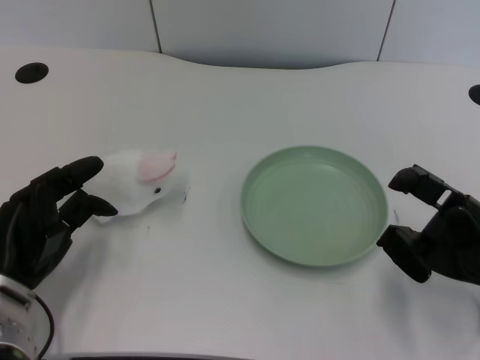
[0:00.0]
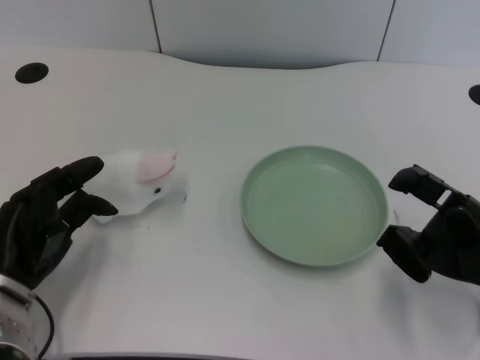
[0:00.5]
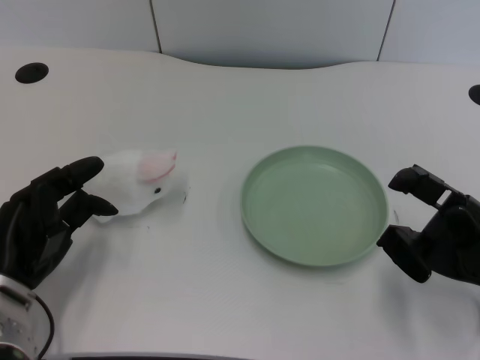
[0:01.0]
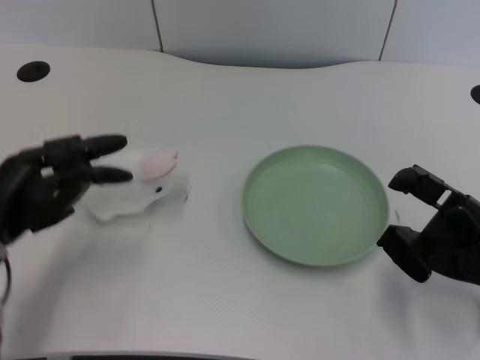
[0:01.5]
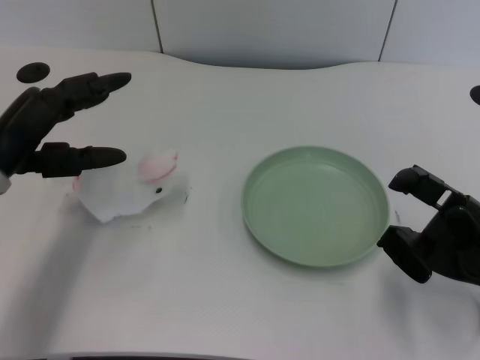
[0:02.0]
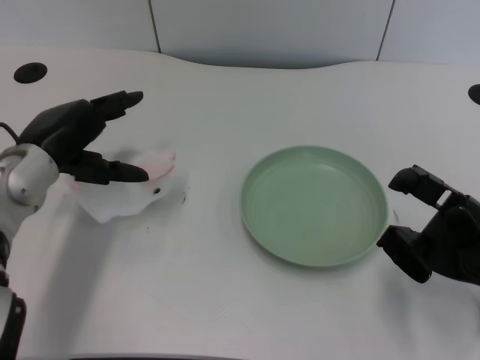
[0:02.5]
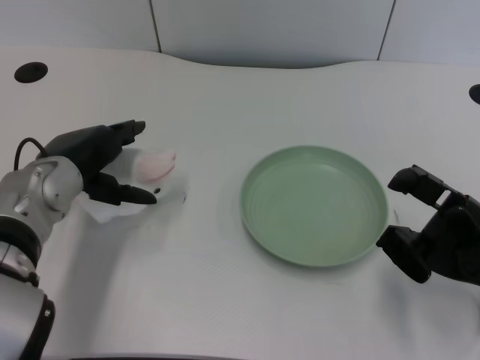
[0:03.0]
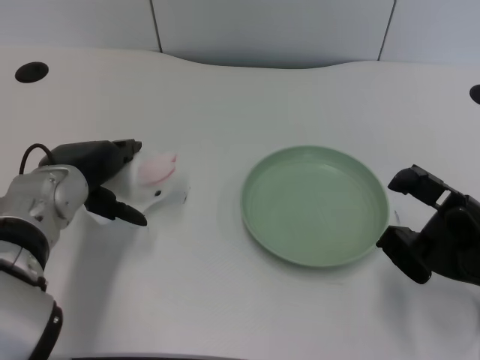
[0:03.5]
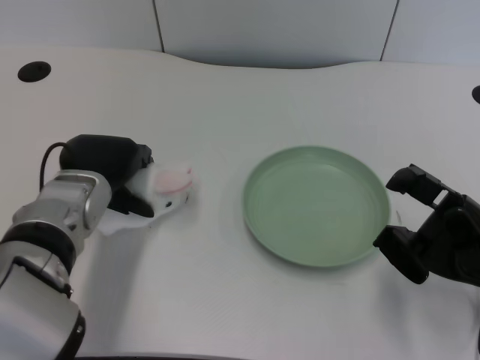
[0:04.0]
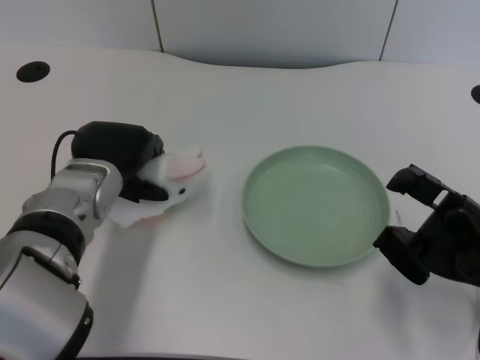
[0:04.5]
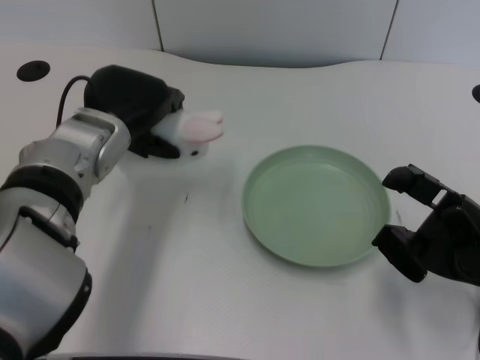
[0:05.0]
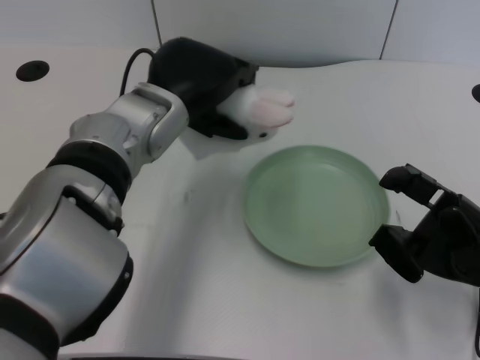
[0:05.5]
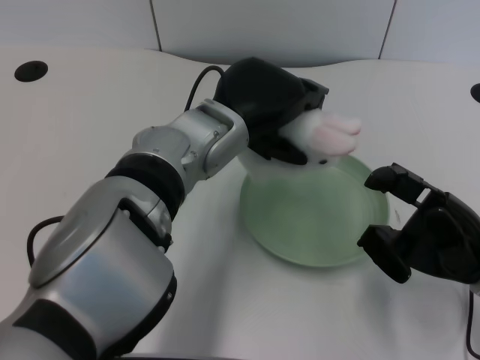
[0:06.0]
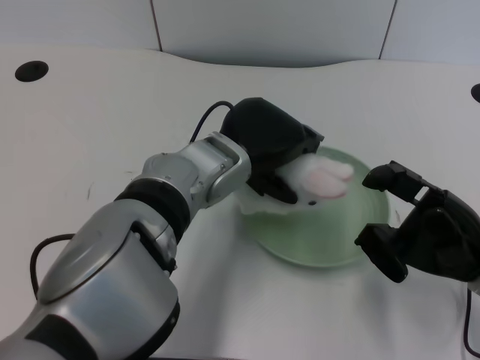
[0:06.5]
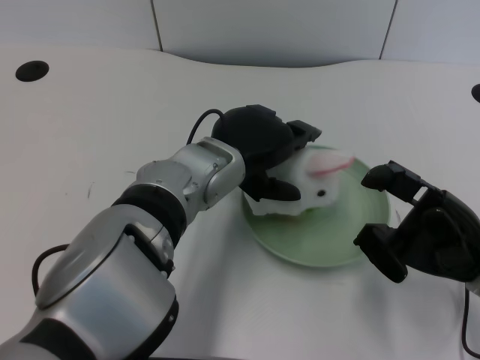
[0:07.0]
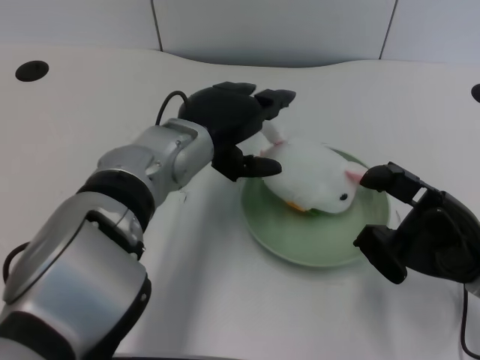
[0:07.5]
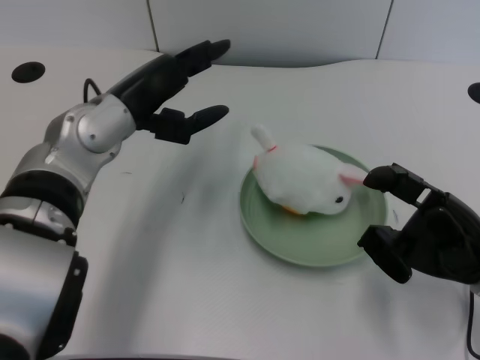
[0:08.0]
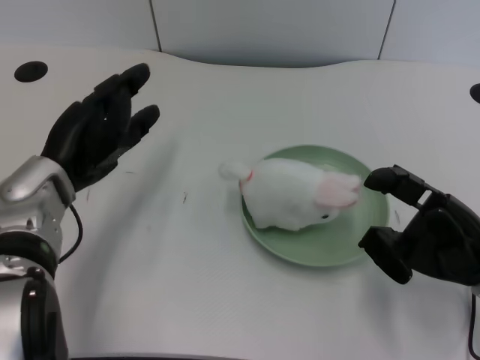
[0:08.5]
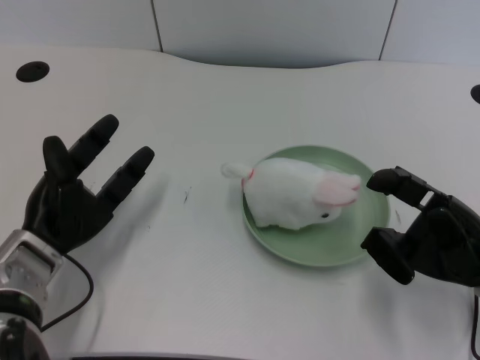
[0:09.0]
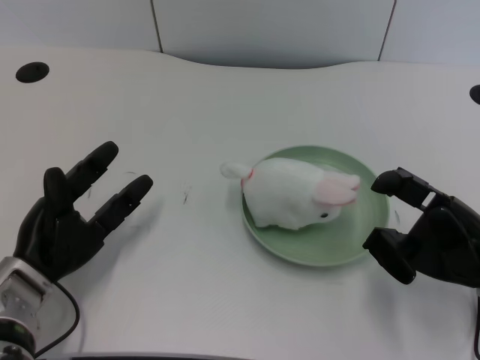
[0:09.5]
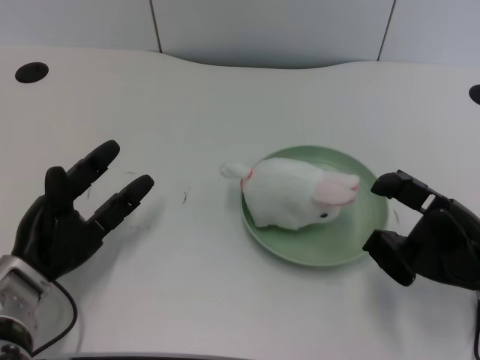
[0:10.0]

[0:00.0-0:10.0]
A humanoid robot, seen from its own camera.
Task of the whole recording: pick up the rabbit doll from the table and place it on the plate.
Step, 0:01.5 to 0:04.5: Grasp the rabbit doll with the left gripper.
Step, 0:05.0 to 0:07.0: Place the rabbit doll into the plate with the left gripper.
0:02.0 to 0:04.0: The left hand heads to the right, covering some 10 cm.
0:04.0 to 0:06.0: The left hand is displaced to the right and upward by roughly 15 cm.
0:06.0 to 0:08.0: The left hand travels to the left by some 10 cm.
0:08.0 to 0:10.0: The left hand travels downward, to the left and backward by roughly 20 cm.

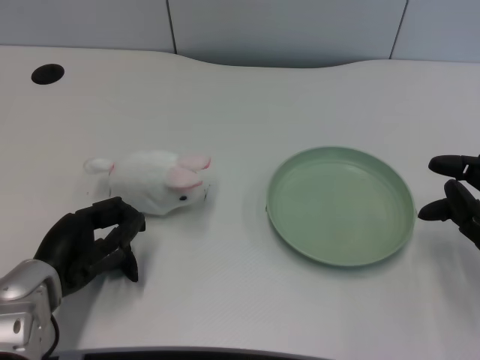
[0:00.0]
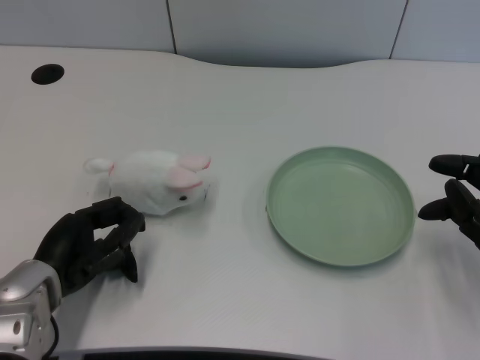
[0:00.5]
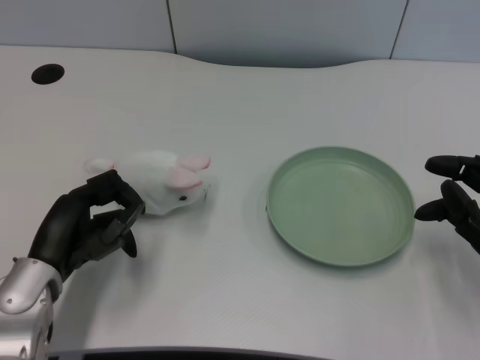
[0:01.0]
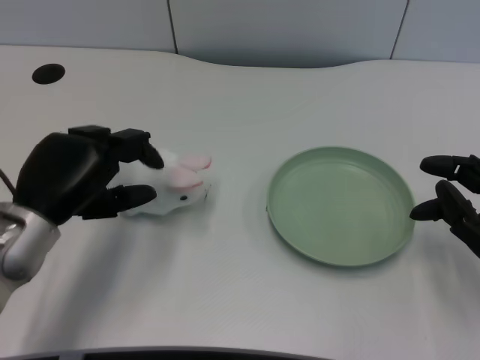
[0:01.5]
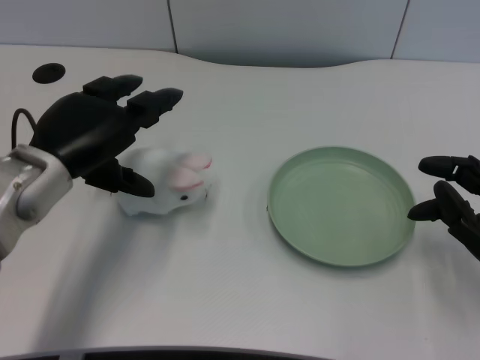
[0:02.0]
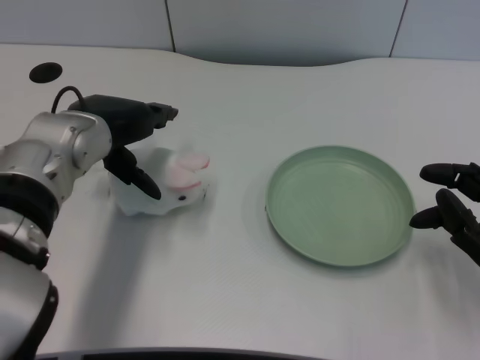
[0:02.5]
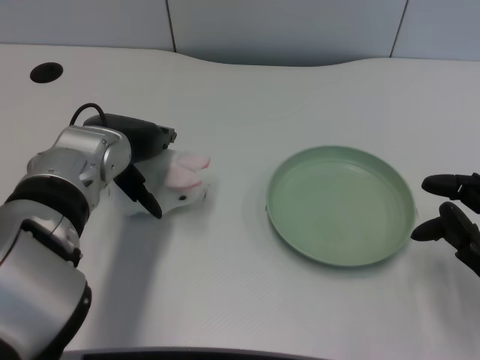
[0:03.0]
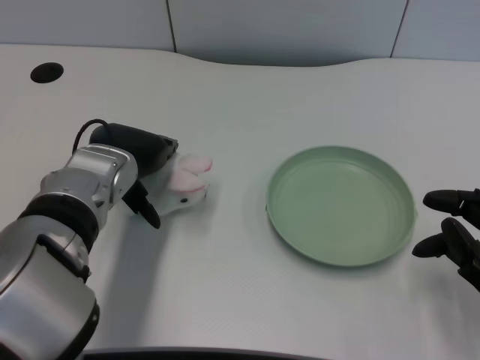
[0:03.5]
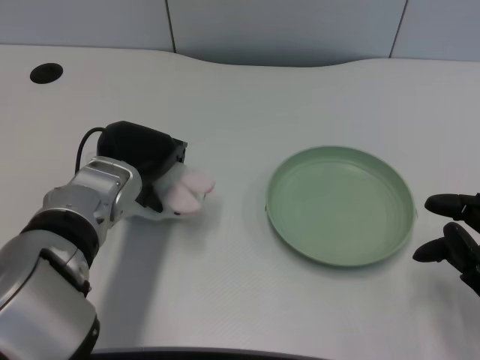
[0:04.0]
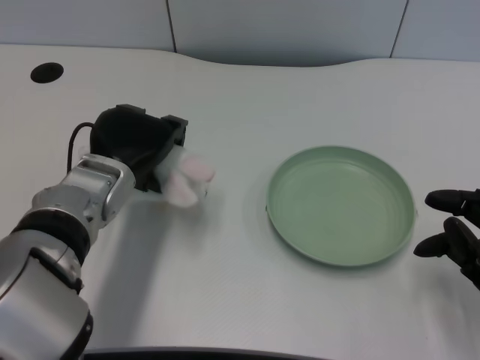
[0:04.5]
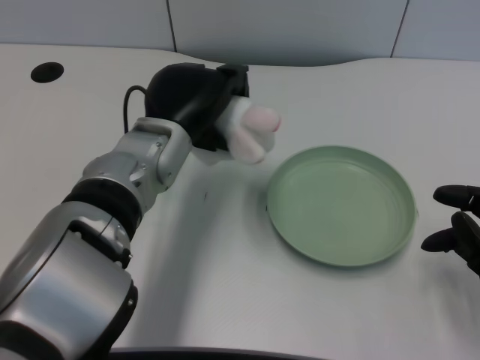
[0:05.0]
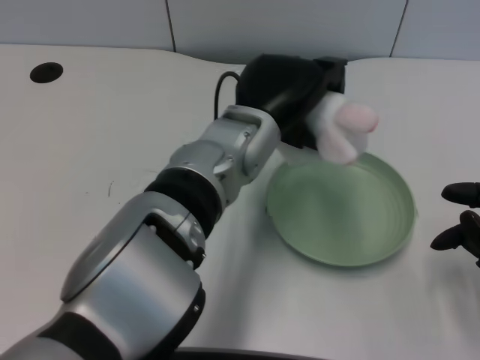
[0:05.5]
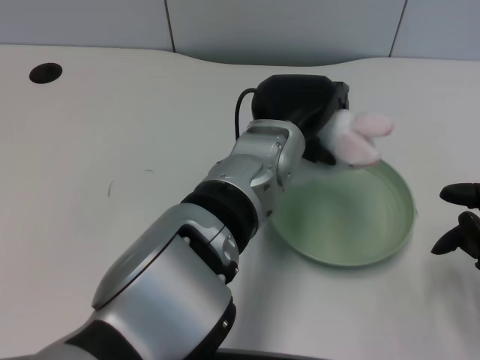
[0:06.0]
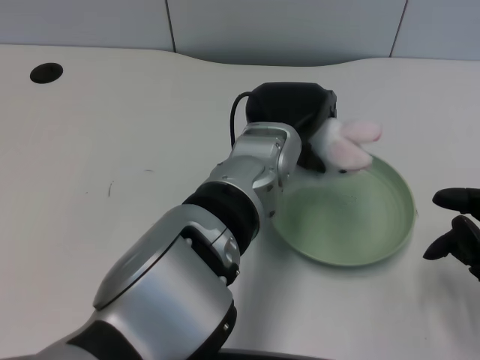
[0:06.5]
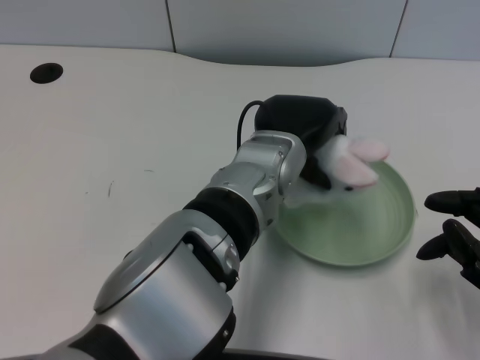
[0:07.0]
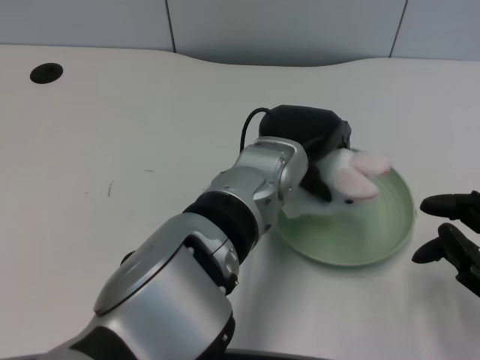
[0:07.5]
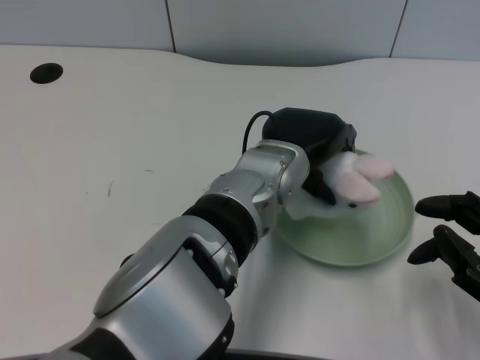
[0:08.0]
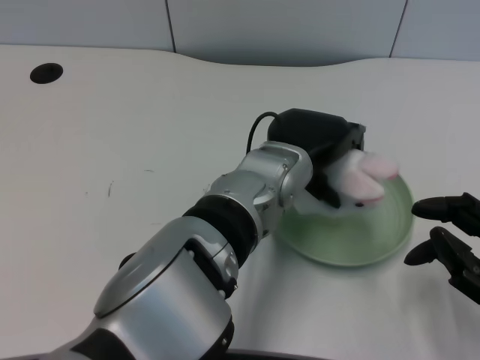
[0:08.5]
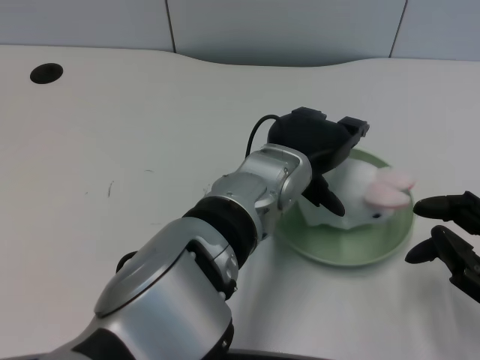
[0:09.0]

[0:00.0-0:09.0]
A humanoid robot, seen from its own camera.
Task of the whole recording: pick up the rabbit doll from the table and place it on the plate.
Step, 0:01.0 to 0:04.0: Grasp the rabbit doll with the left gripper.
0:02.0 to 0:04.5: The left hand is displaced to the right by about 5 cm.
0:04.5 to 0:07.0: The left hand is displaced to the right by roughly 15 cm.
0:07.0 to 0:09.0: The hands stay close to where they were, moving slightly.

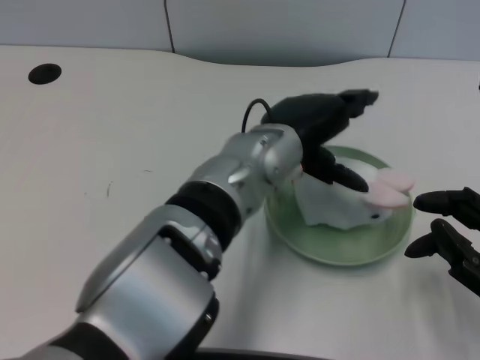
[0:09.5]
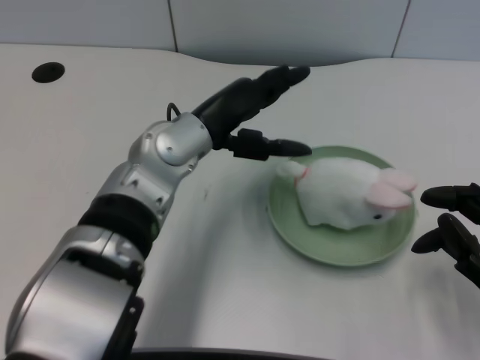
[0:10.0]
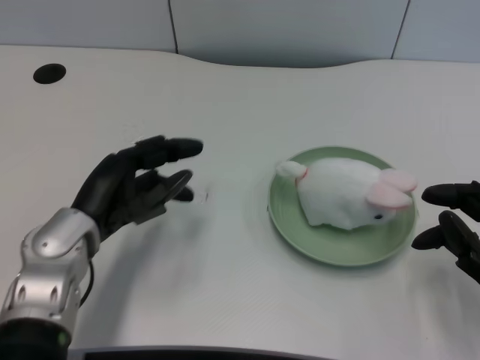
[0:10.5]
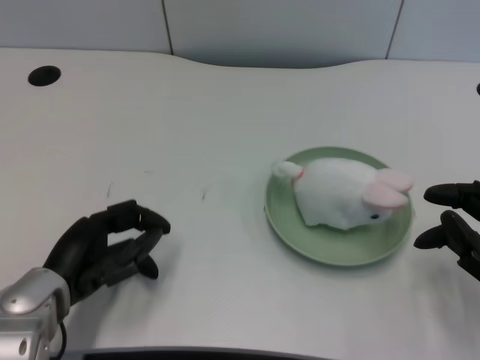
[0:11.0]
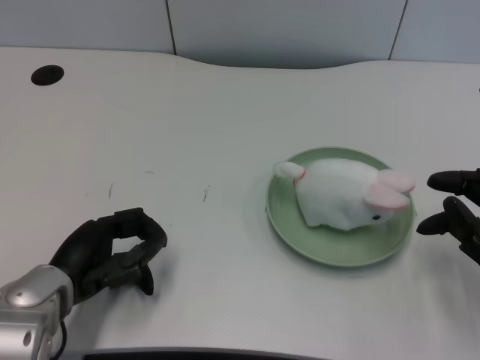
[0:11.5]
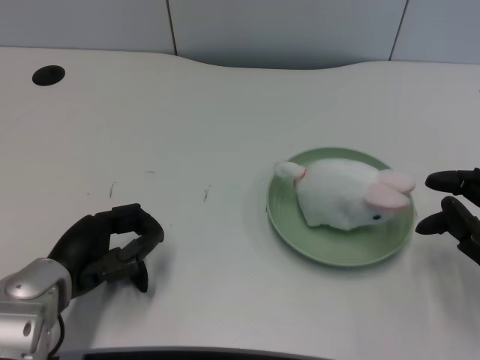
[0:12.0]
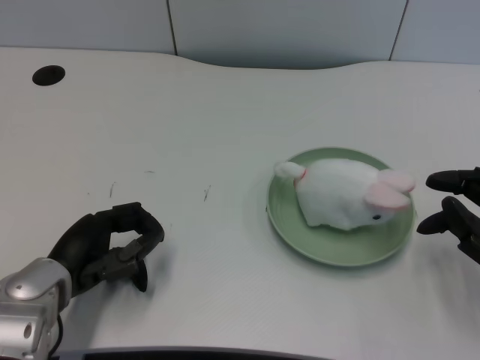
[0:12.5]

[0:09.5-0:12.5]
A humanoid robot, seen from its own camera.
Task of the whole recording: pick up the rabbit doll from the table and place it on the plate.
0:09.5 to 0:11.0: The left hand heads to the left and downward, covering approximately 25 cm.
0:11.0 to 0:12.5: There are only small adjustments of the hands.
